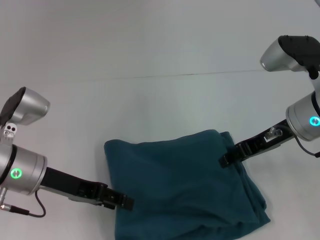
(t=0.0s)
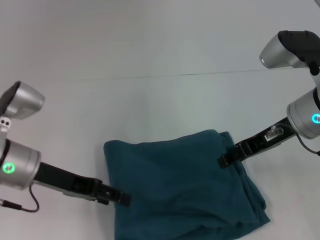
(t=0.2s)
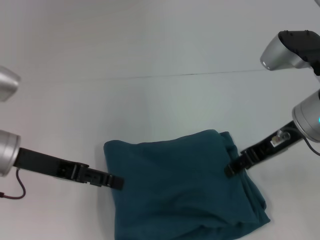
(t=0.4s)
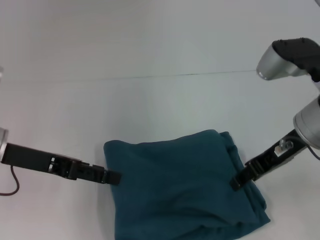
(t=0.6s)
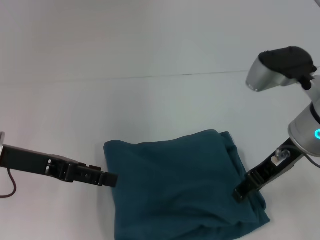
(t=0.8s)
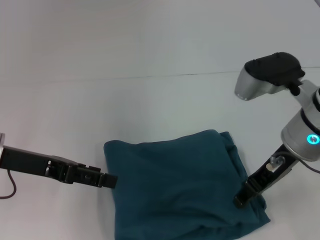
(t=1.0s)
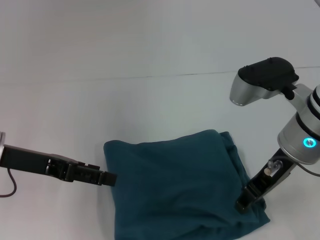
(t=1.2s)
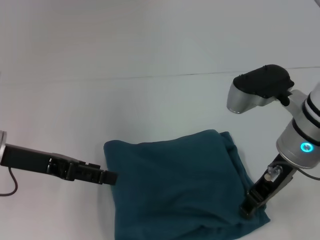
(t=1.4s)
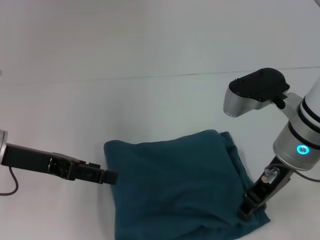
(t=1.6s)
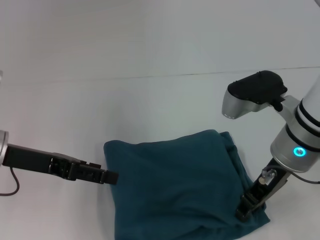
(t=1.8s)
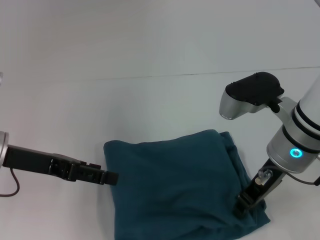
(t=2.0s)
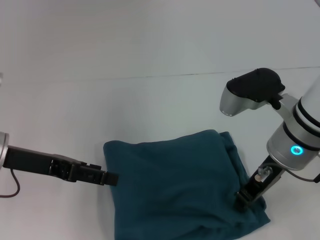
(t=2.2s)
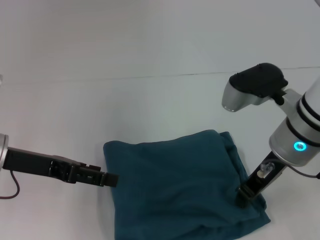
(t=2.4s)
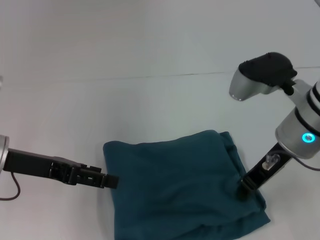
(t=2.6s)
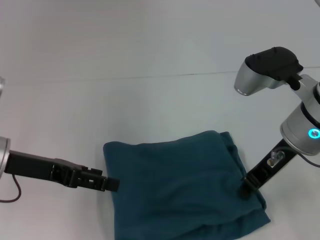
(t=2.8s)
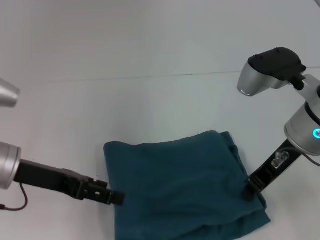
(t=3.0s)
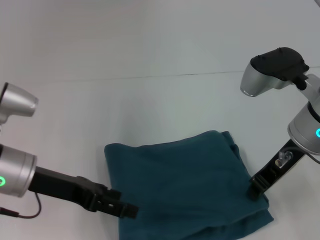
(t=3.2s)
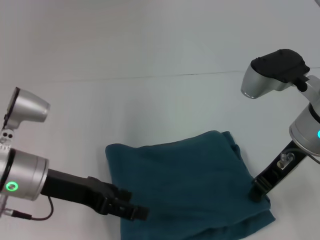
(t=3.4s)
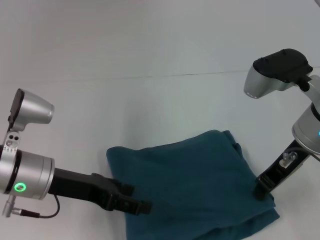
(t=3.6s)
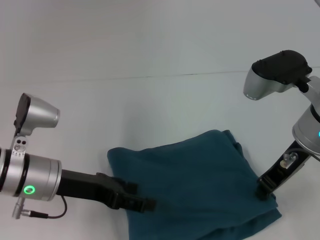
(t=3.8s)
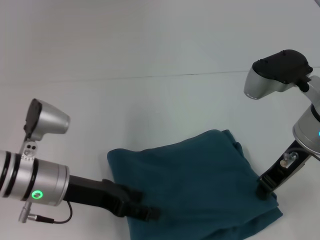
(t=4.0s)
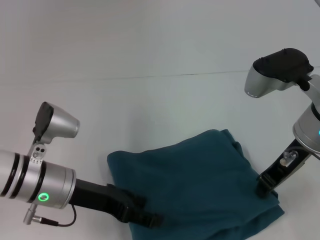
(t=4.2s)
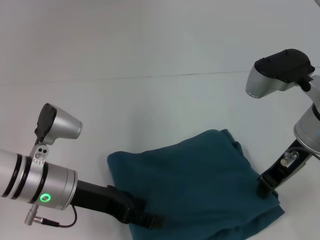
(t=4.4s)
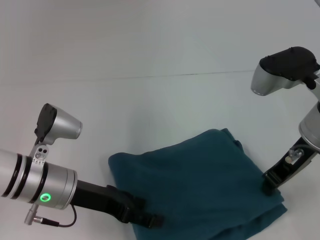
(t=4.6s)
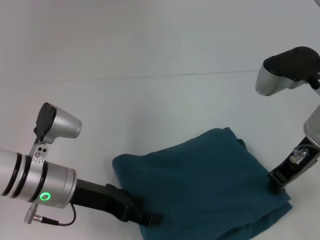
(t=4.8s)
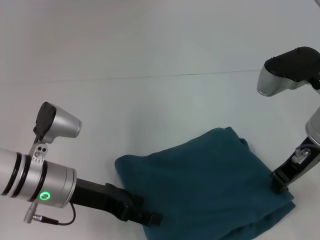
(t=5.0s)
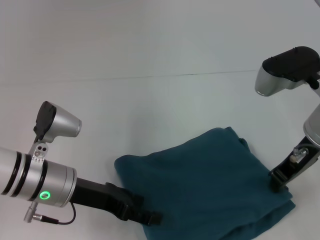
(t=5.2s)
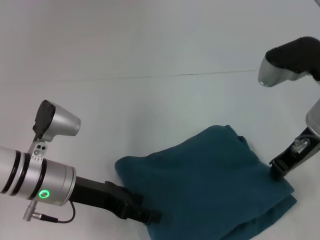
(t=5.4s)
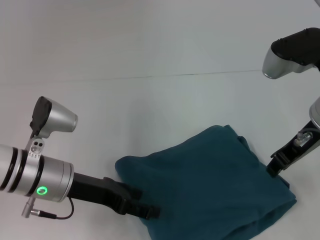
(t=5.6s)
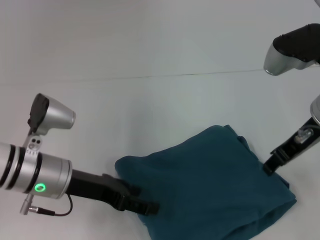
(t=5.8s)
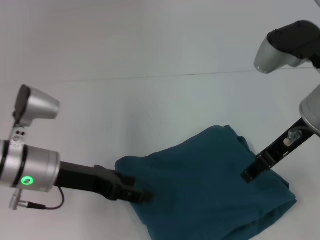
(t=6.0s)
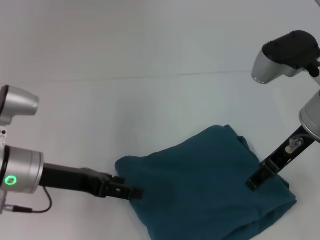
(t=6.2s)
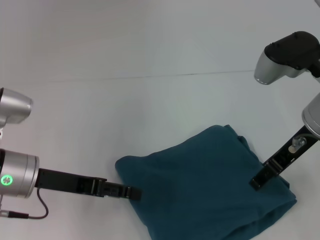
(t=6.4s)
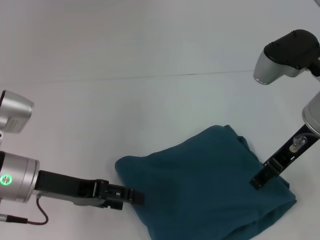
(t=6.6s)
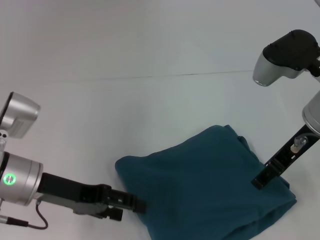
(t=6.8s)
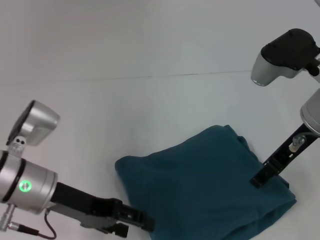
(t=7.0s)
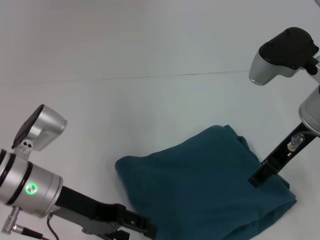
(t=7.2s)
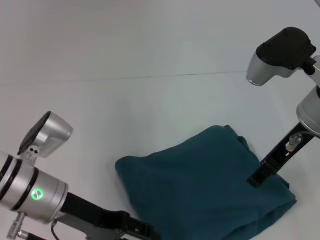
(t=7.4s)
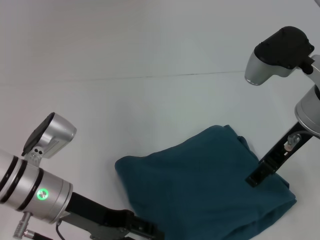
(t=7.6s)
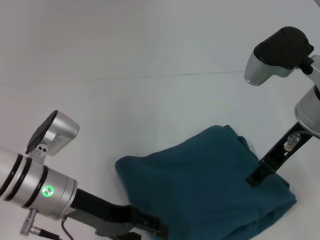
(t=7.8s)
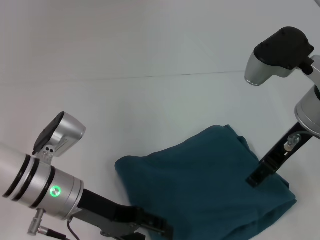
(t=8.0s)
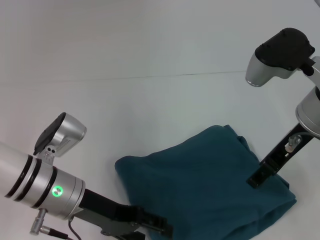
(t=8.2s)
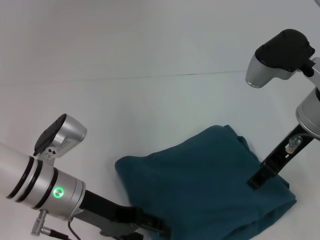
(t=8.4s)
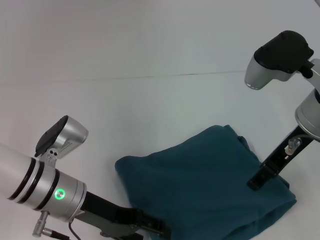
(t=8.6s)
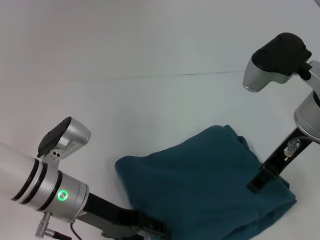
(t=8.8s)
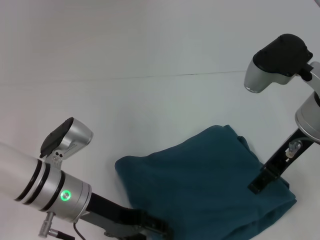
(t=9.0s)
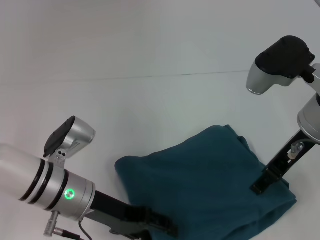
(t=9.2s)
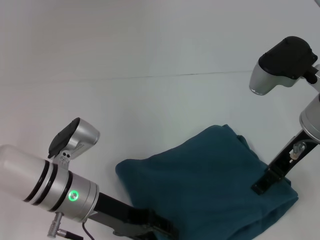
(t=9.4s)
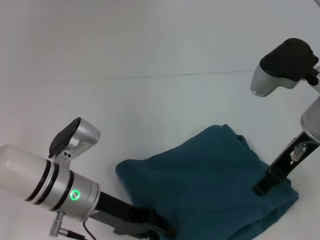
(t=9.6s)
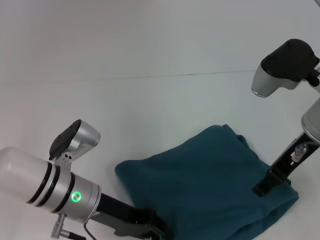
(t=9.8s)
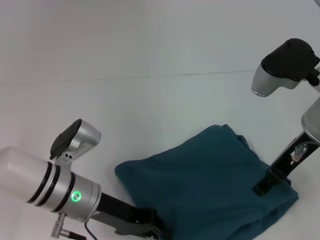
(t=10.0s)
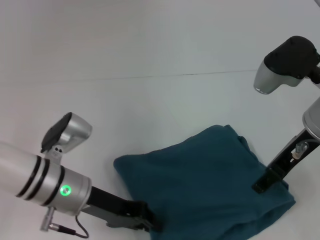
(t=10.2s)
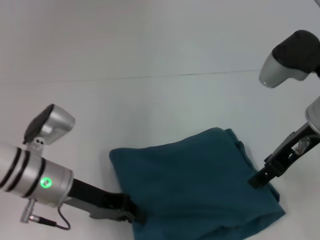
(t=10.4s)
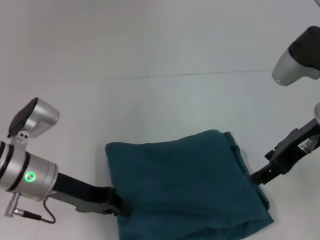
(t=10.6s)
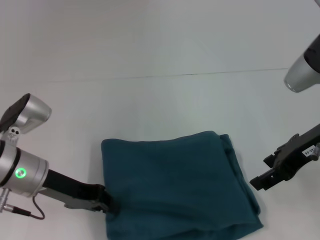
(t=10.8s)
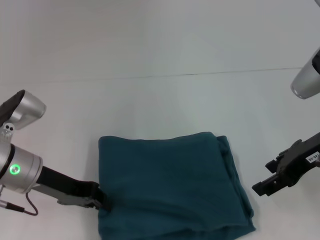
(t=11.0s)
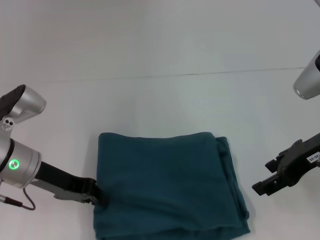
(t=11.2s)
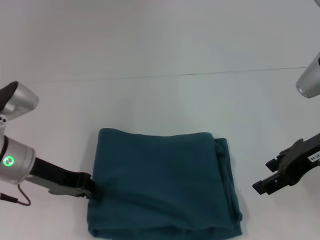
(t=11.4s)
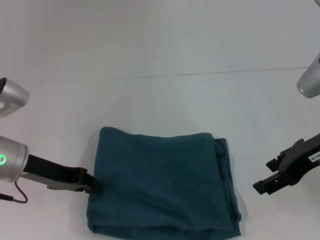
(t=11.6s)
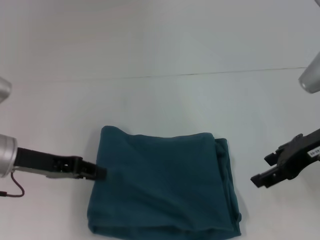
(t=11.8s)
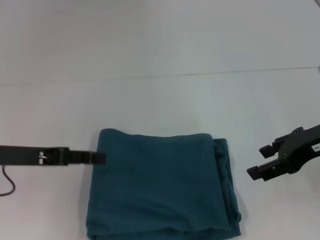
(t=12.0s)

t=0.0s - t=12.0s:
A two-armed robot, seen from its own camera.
t=0.0s - t=1.6s: The left gripper moves approximately 5 cm, and opens up. Meanwhile the right gripper ends up approximately 5 cm from where it was.
t=1.6s - t=3.0s: The right gripper closes its fingers.
t=3.0s - t=4.4s: The left gripper goes approximately 10 cm to the right and downward.
t=4.4s - t=6.0s: The right gripper opens up.
t=6.0s - t=7.6s: The right gripper opens.
t=7.6s - t=9.0s: The grippers move only a little.
t=9.0s - t=10.4s: The left gripper closes.
t=10.4s - t=12.0s: The left gripper is displaced to the left by approximately 10 cm; the right gripper shifts some 5 cm to the right.

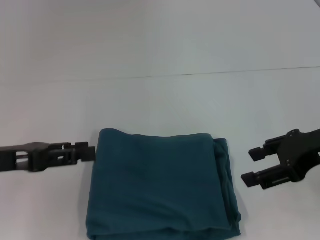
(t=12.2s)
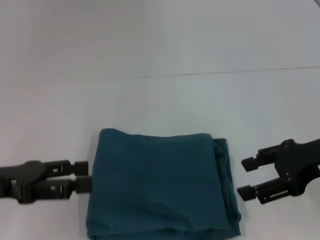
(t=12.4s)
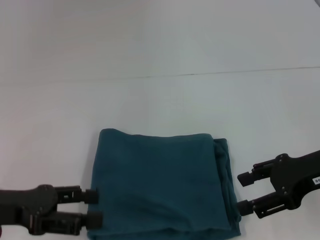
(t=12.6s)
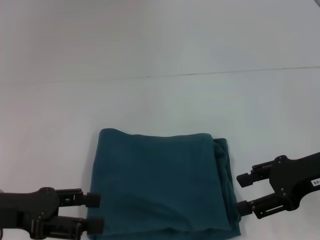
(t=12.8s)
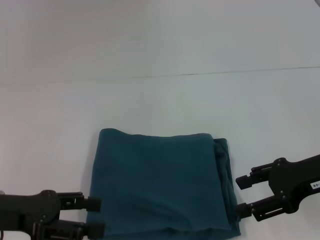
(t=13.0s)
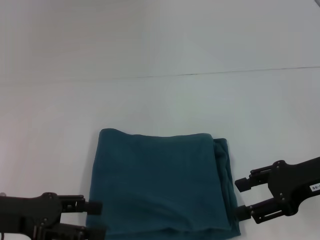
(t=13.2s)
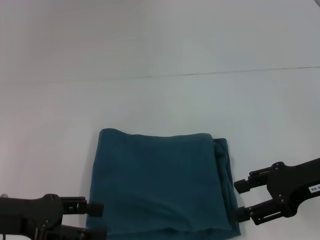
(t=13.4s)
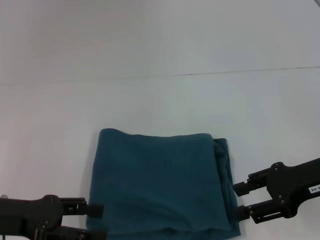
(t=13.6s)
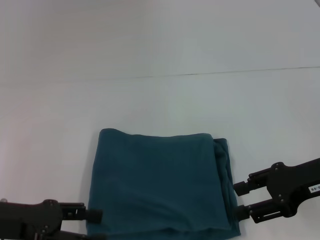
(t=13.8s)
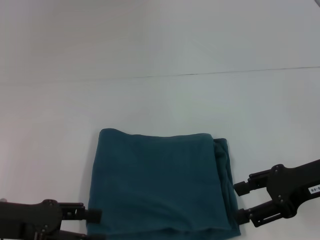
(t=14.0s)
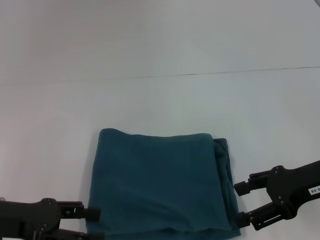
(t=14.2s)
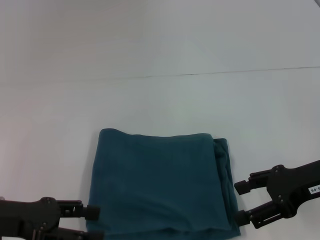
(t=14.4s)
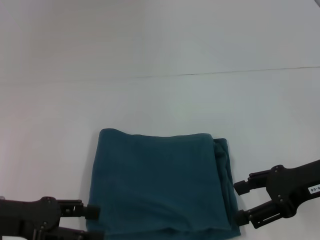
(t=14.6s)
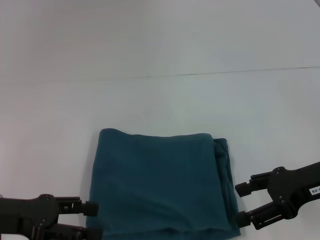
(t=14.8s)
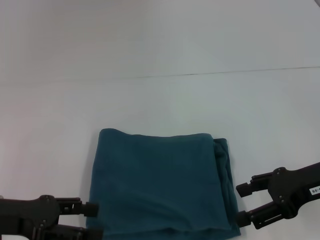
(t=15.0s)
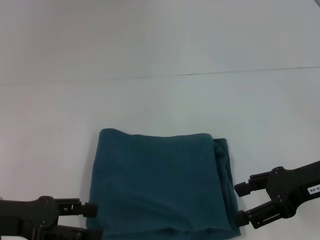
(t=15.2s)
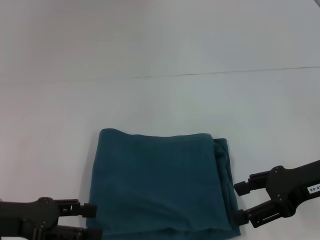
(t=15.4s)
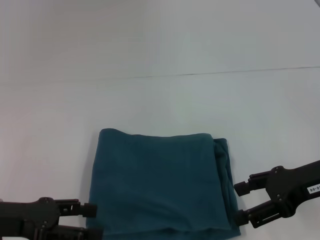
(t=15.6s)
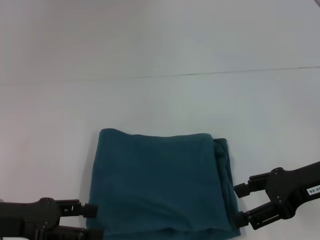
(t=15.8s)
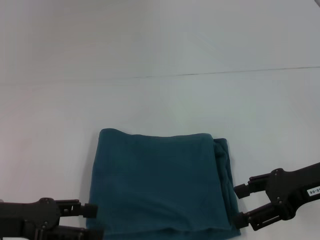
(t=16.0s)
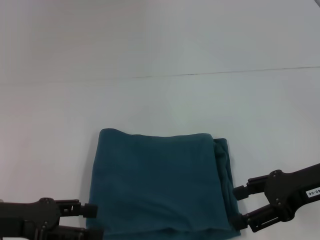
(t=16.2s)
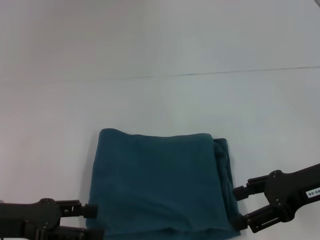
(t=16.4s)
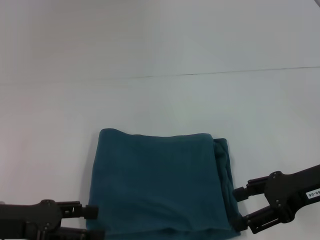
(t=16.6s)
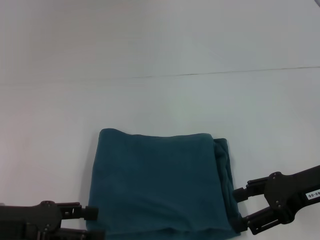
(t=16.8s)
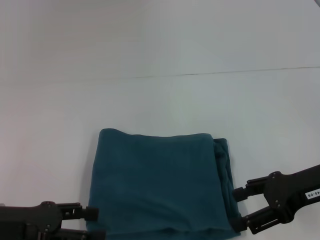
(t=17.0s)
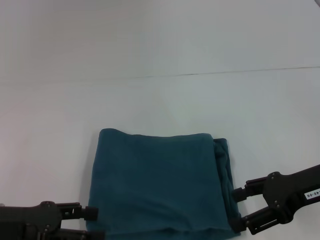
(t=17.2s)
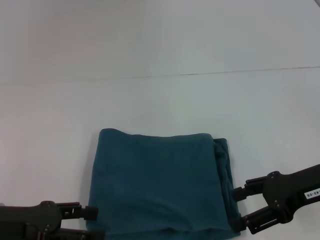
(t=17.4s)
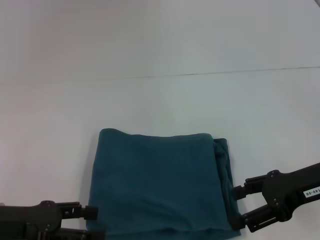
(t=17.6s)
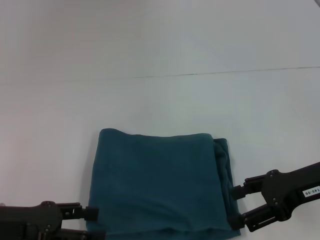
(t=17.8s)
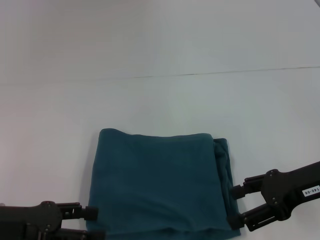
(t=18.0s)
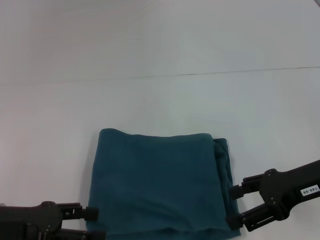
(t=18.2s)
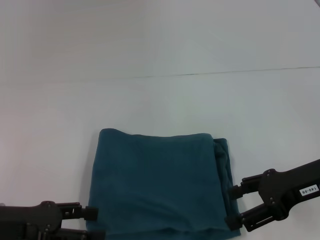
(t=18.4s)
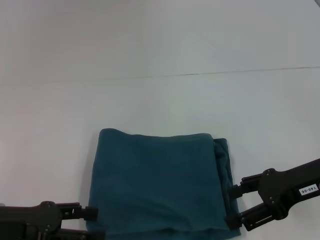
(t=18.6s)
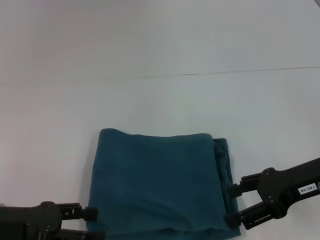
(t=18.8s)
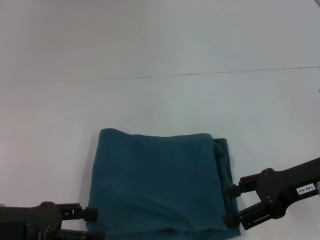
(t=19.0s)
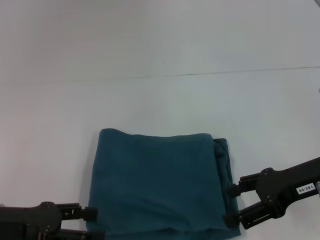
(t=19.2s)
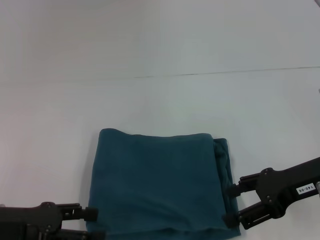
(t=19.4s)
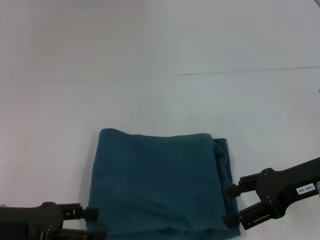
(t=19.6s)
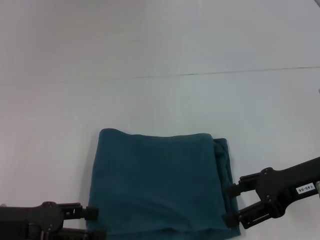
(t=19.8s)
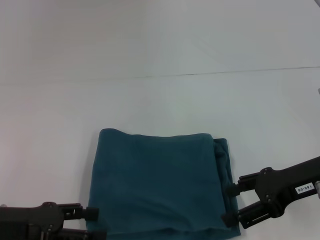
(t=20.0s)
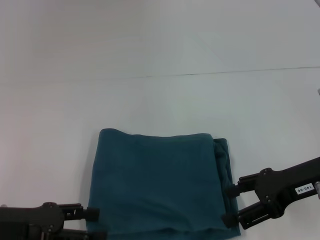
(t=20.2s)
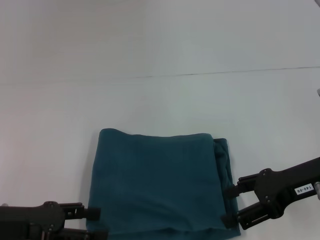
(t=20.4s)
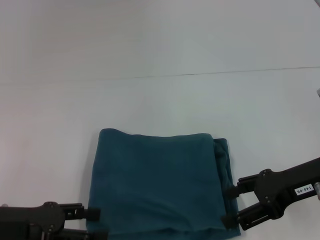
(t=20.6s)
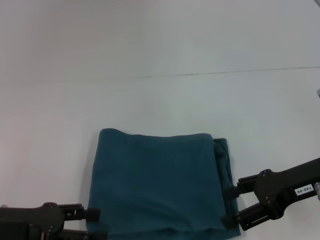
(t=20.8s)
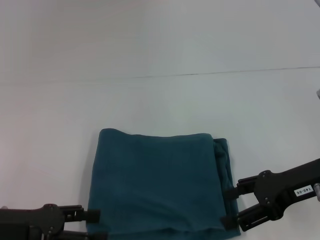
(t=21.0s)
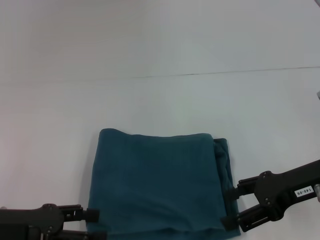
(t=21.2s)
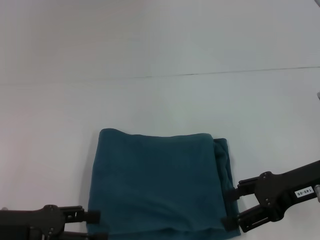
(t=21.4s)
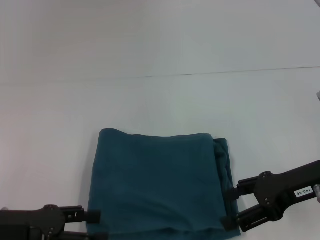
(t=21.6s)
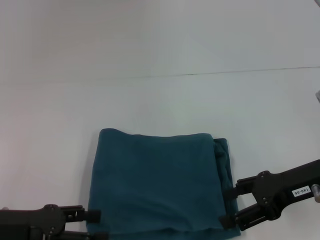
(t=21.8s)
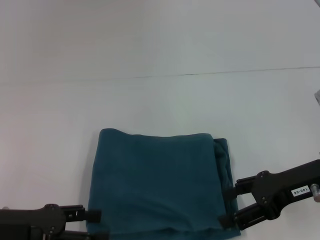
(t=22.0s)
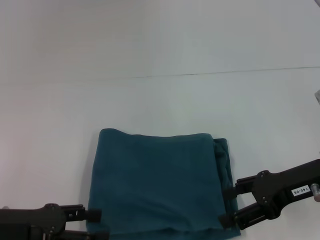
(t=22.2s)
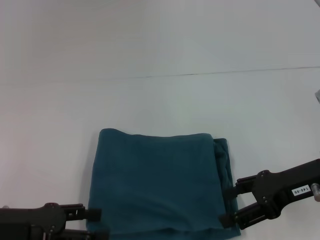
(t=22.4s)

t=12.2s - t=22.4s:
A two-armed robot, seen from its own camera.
t=12.2s - t=13.6s: The left gripper opens.
t=13.6s - t=15.2s: The grippers make only small movements.
t=15.2s - t=18.0s: Both grippers stay put.
t=18.0s - t=21.0s: Both grippers stay about where they are.
t=21.0s - t=22.4s: Both grippers stay put.
